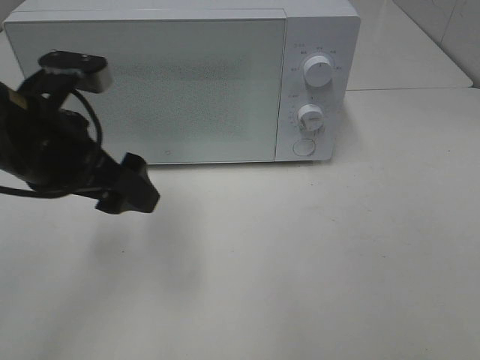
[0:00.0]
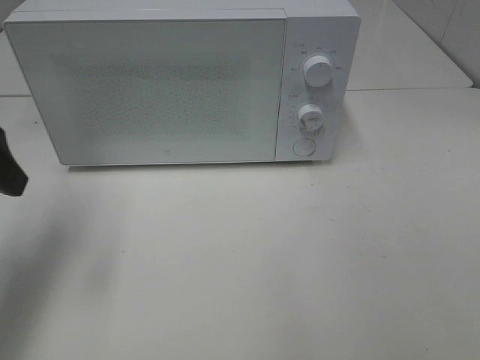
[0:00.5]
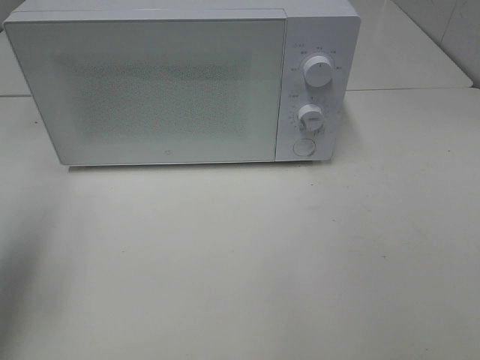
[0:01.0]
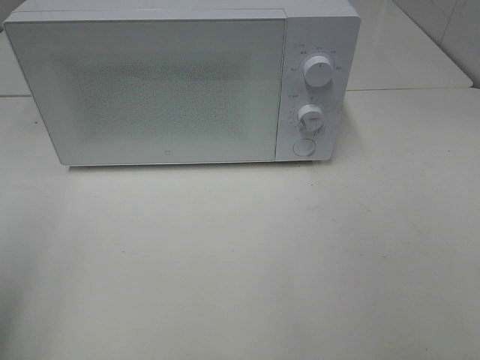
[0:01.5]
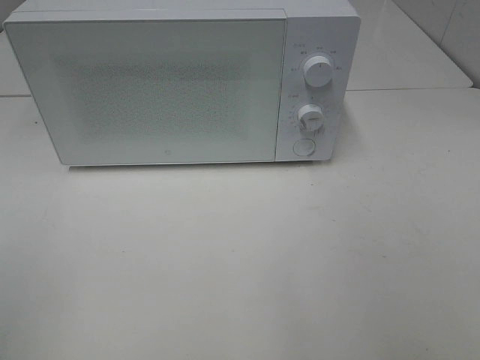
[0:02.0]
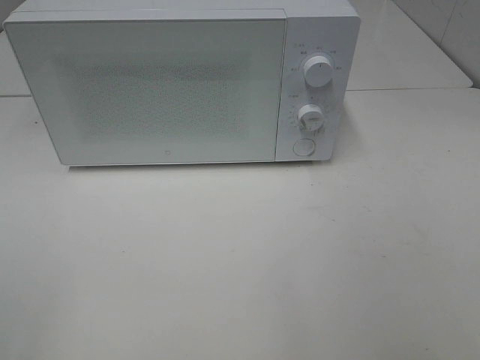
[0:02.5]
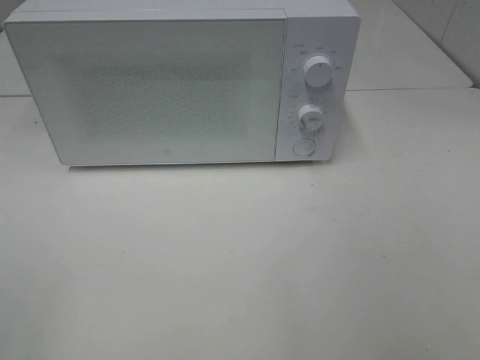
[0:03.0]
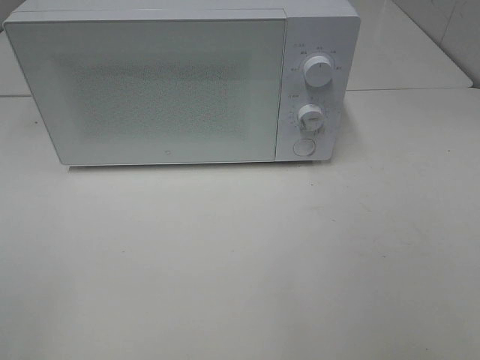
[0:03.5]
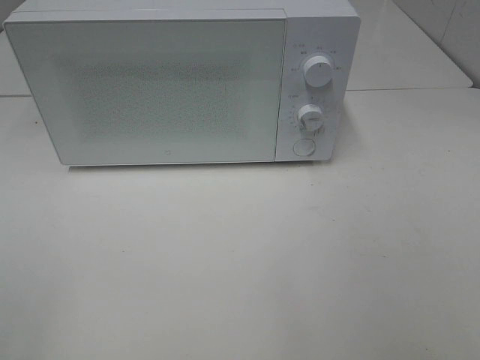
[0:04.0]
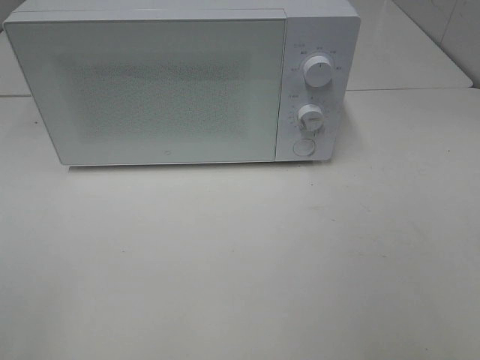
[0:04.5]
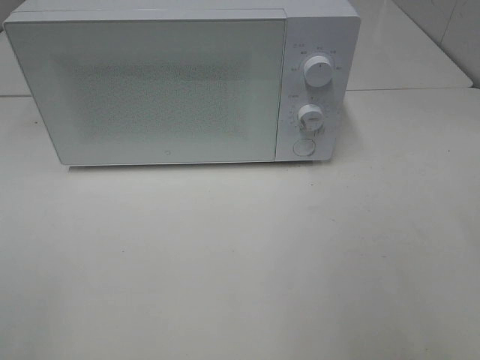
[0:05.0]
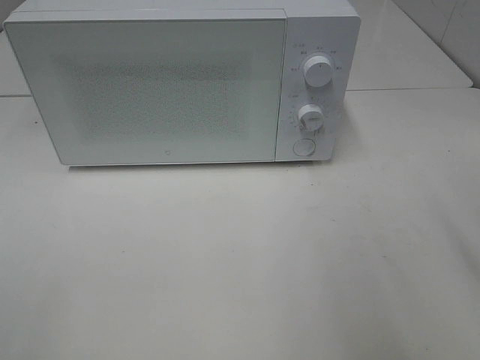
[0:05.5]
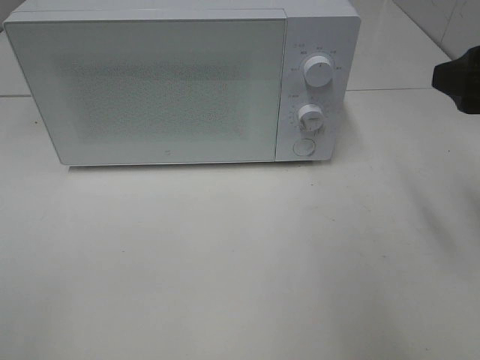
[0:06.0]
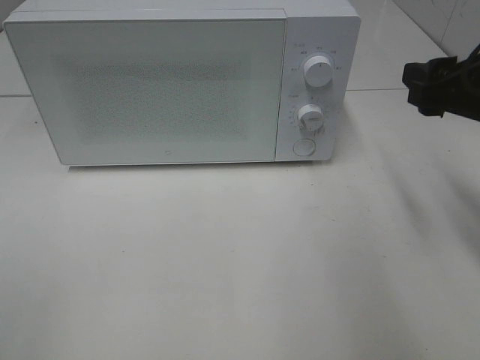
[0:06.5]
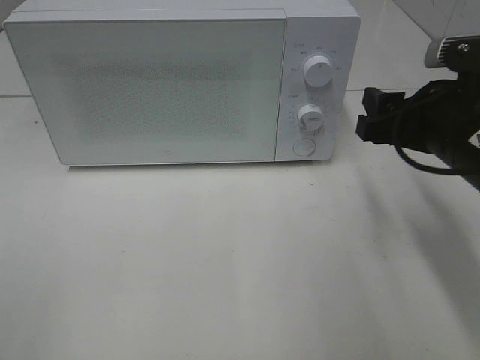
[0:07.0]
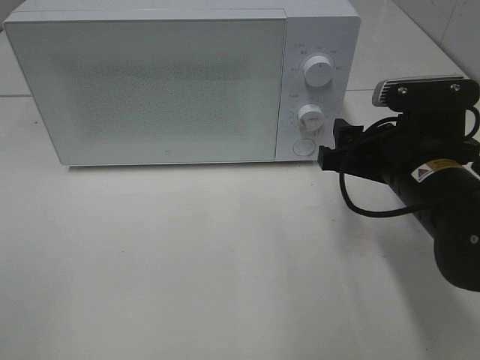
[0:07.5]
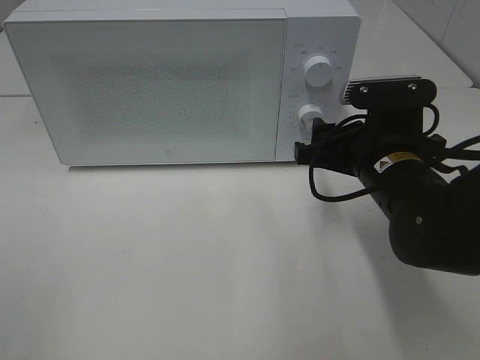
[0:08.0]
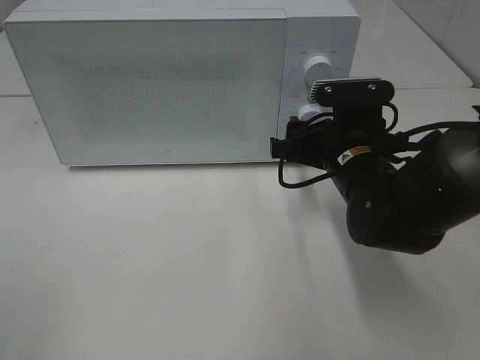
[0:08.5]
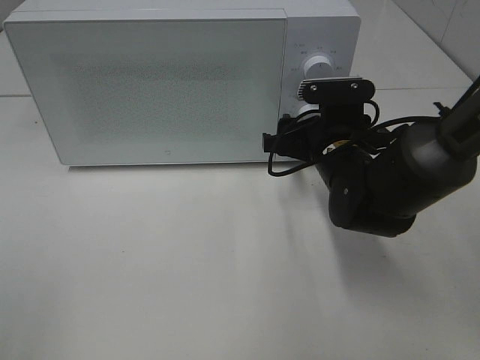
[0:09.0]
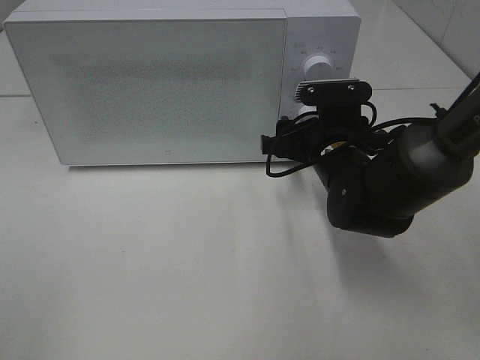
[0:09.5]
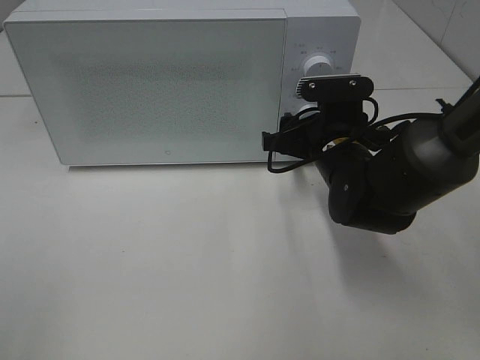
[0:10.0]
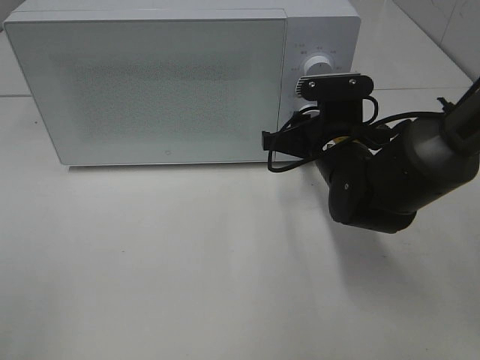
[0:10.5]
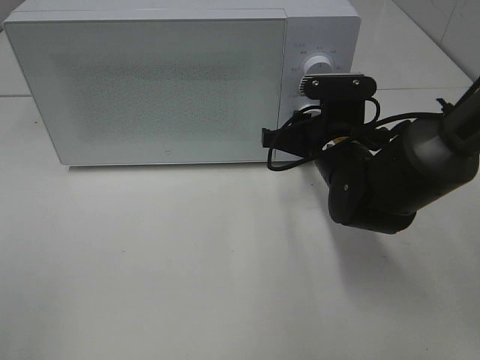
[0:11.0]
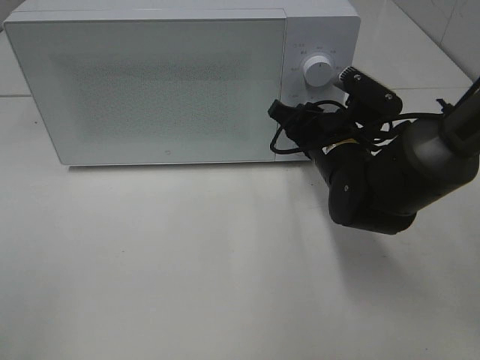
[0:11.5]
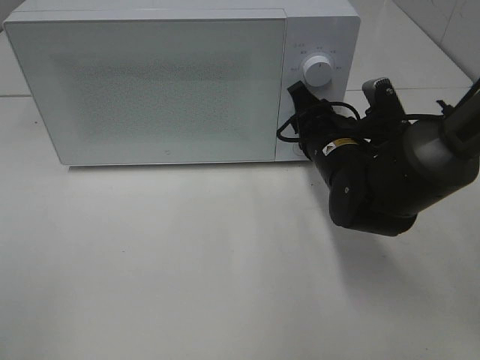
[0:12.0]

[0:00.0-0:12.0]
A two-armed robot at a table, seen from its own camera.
Task of the whole recording: Heat Sandwich.
0:00.0 to 0:02.0: The left gripper heads backward and to the left, covering approximately 25 cm.
0:04.0 to 0:06.0: The right gripper heads forward, covering approximately 20 cm.
0:06.0 to 0:08.0: The right gripper goes roughly 15 cm downward and to the left.
0:08.0 to 0:10.0: The right gripper shifts about 5 cm forward.

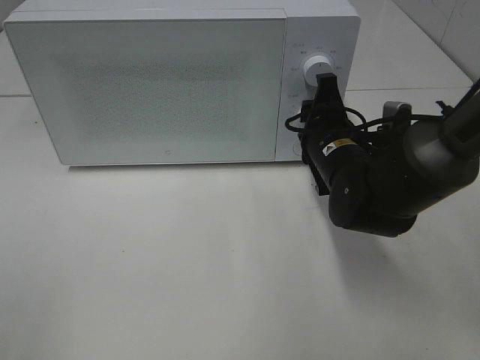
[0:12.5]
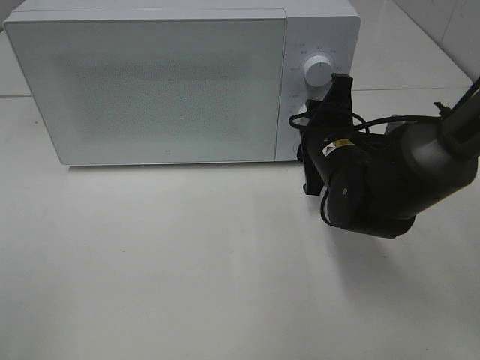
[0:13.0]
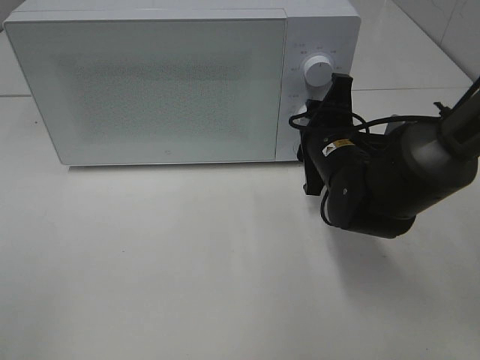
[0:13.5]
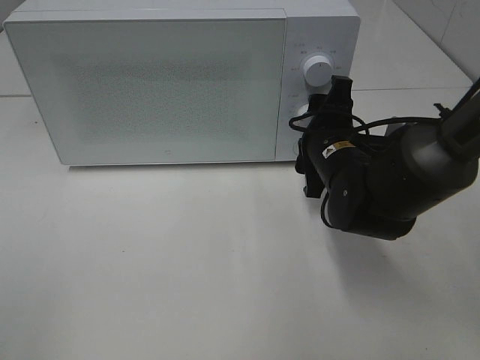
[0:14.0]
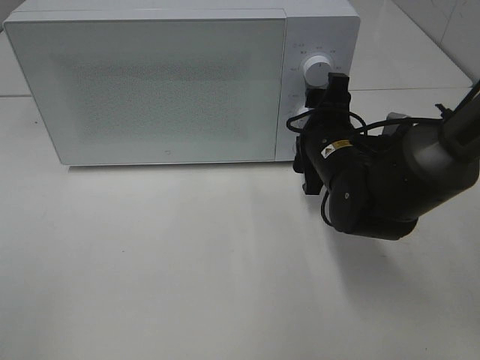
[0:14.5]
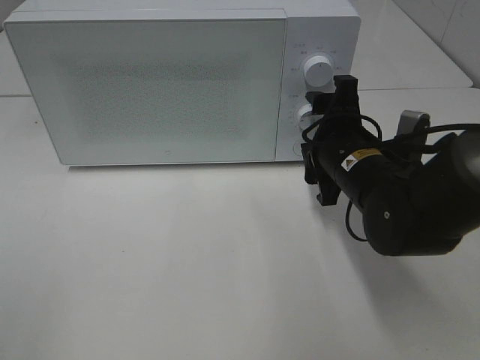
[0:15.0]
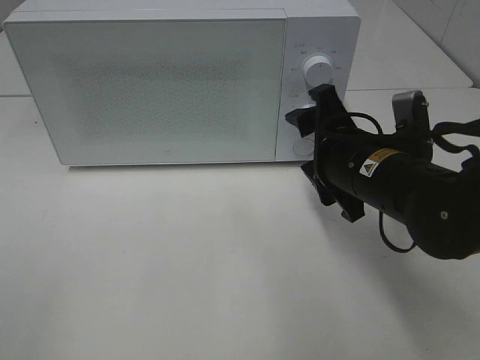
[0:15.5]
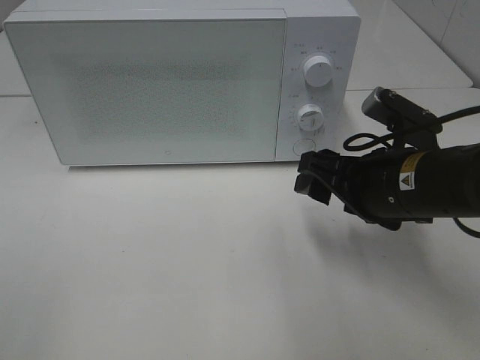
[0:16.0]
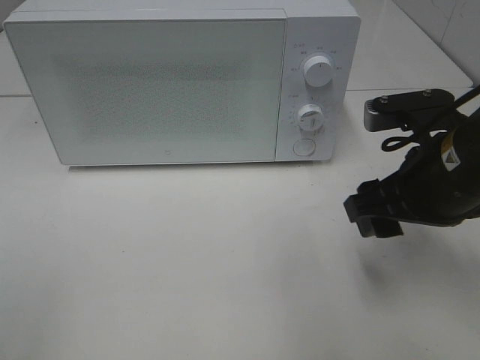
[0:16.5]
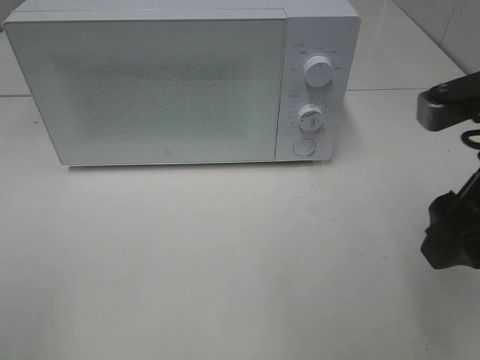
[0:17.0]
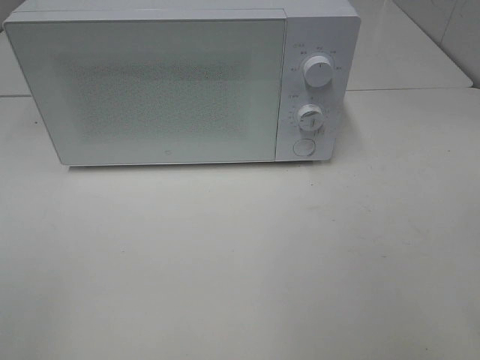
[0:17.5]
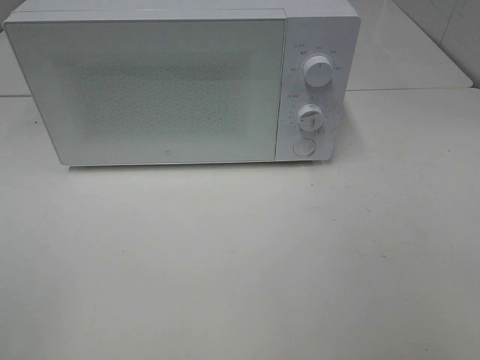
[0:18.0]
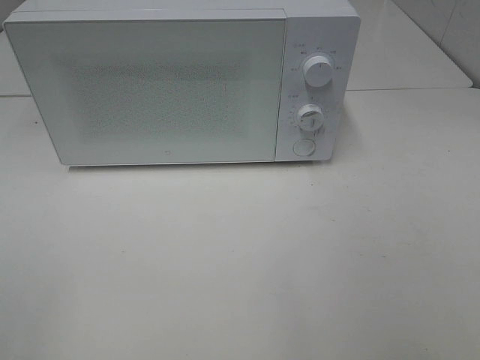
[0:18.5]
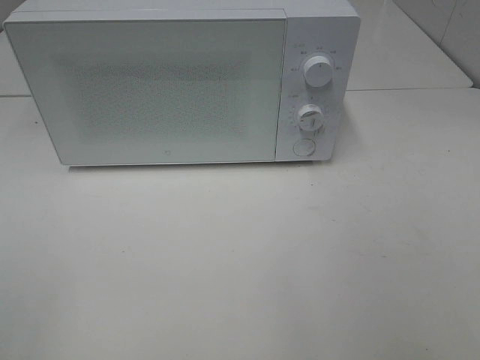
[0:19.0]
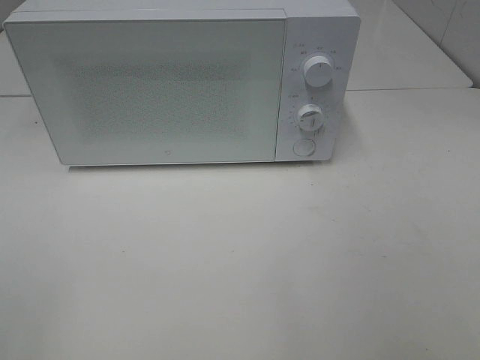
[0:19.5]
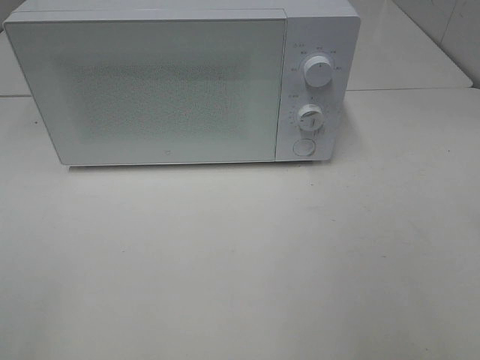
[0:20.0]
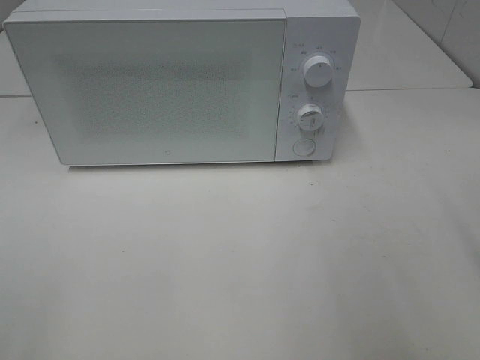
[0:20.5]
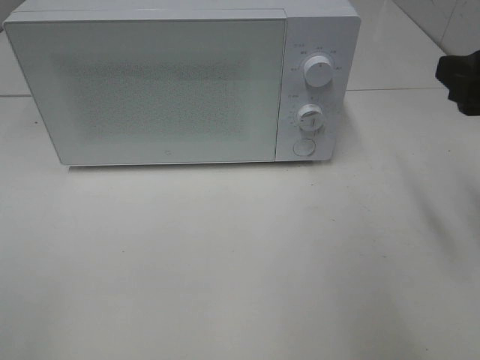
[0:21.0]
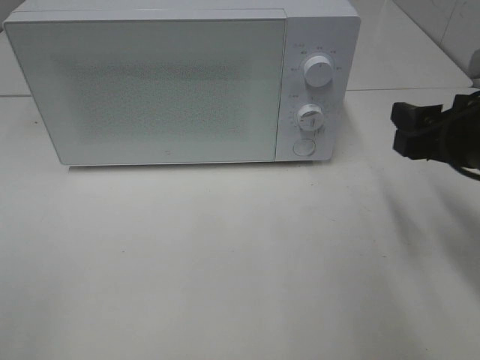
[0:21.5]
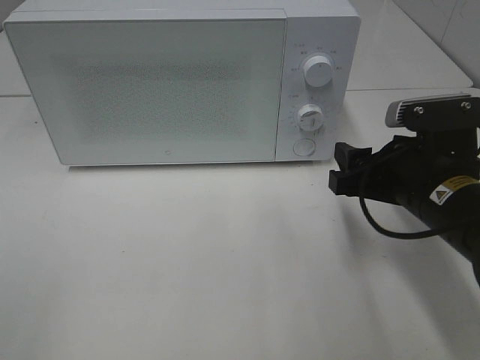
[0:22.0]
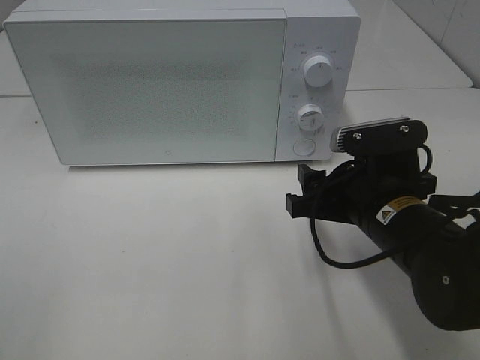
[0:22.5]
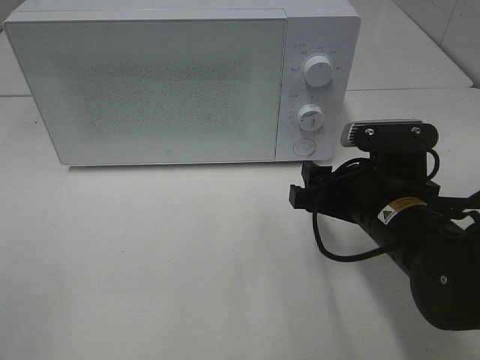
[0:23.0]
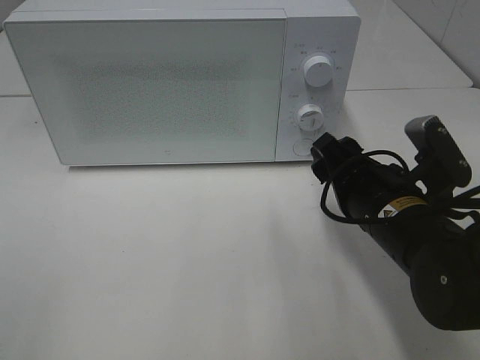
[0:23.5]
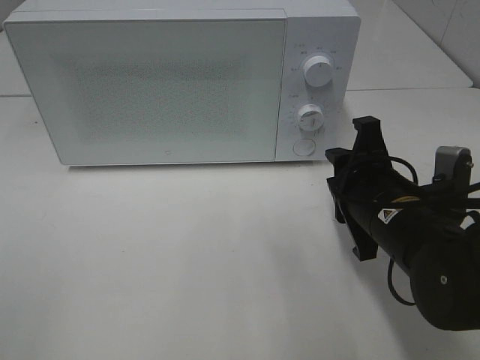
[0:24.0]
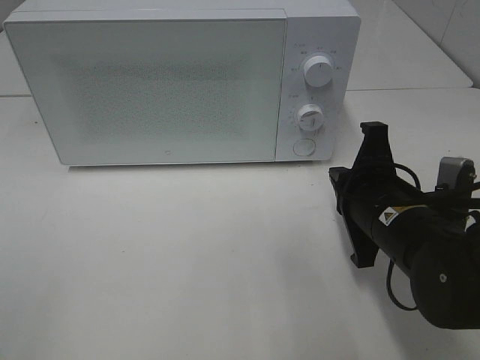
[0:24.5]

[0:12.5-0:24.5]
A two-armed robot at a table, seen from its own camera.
Task of the whole recording: Heat Sandwich.
Step, 0:12.5 to 0:14.5: Right hand: twist timer button.
0:12.5 to 0:14.5: The grippers move only a little.
0:14.5 to 0:16.5: The right gripper moves backward, upward and to the right, some 15 cm.
0:16.5 to 0:18.5: The right gripper moves backward and to the right, roughly 25 cm.
0:20.5 to 0:22.5: The right gripper shifts some 20 cm downward, to the left and forward.
0:22.5 to 0:24.5: The right gripper closes.

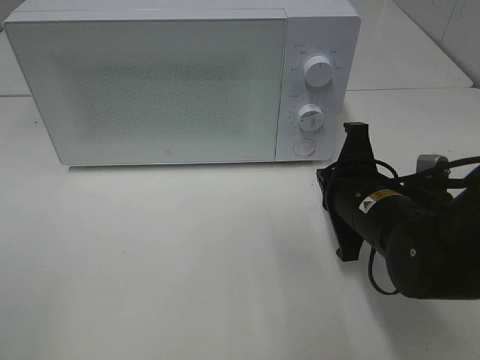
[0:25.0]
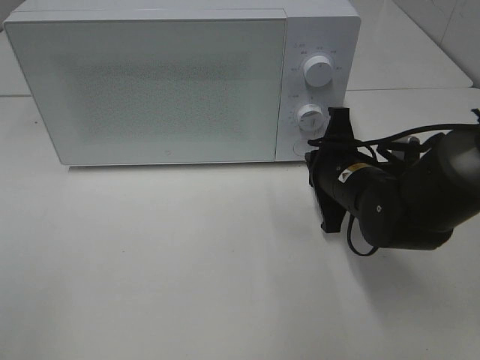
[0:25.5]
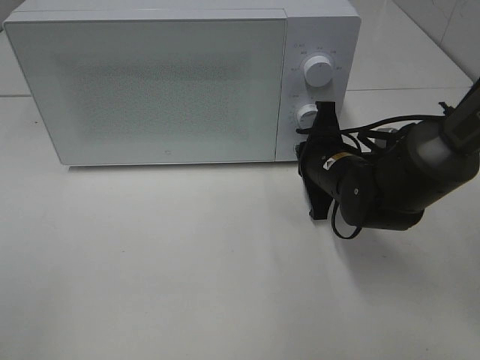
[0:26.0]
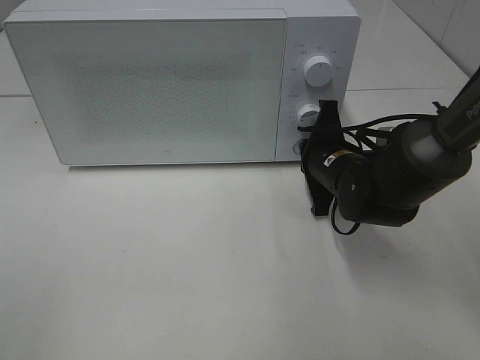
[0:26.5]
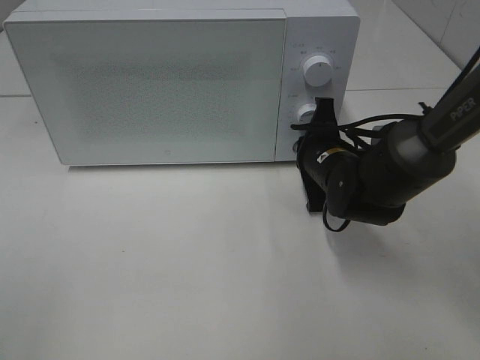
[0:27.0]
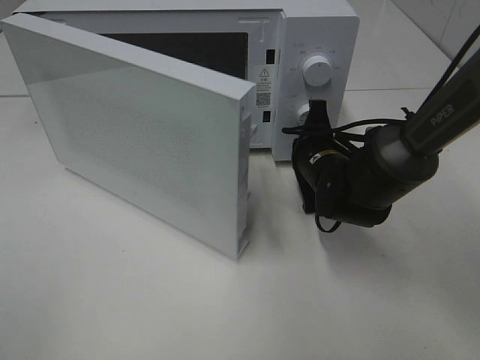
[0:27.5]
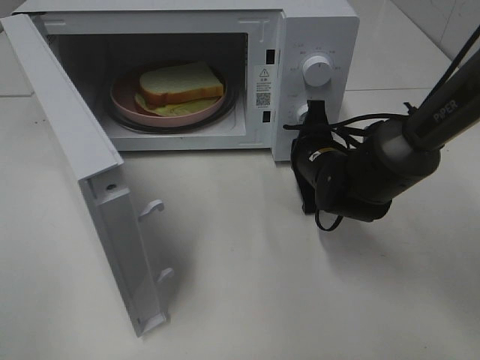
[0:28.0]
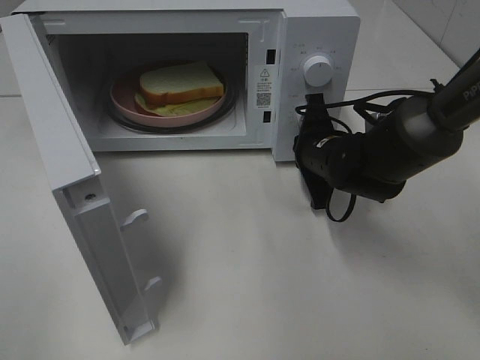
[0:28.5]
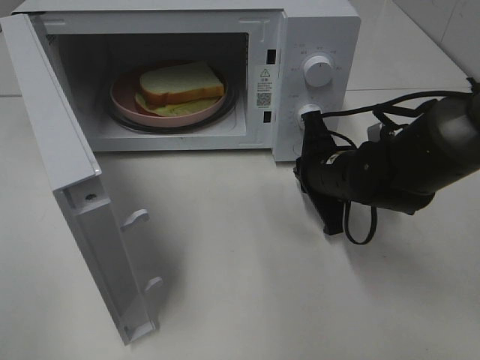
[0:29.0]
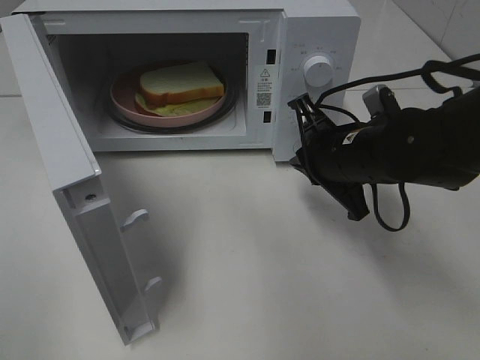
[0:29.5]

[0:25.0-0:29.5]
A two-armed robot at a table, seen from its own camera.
Task of the whole recording: Heat Sandwich.
Step, 0:25.0 to 0:29.0: Right hand: press the switch.
0:25.0 to 0:27.0: The right gripper shifts roughly 10 cm forward.
0:27.0 to 0:29.5: The right gripper is displaced upward and backward by some 10 cm.
